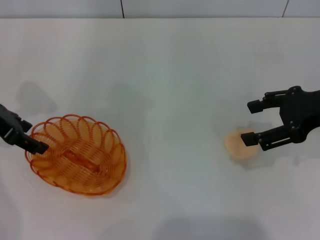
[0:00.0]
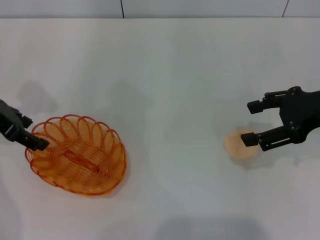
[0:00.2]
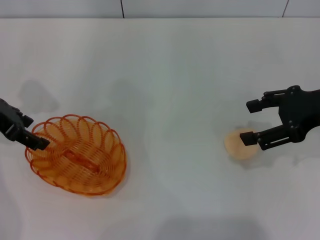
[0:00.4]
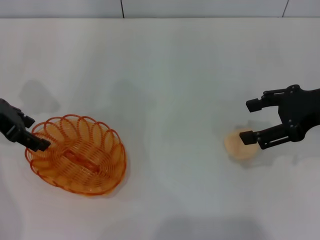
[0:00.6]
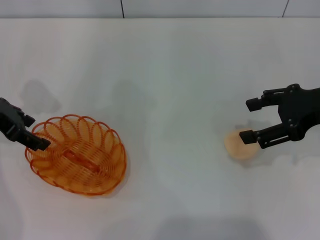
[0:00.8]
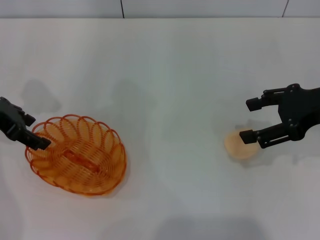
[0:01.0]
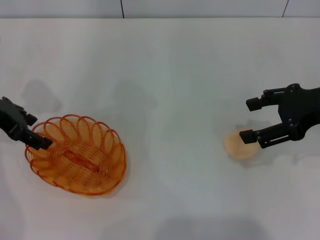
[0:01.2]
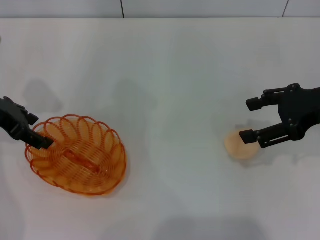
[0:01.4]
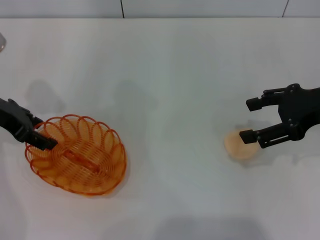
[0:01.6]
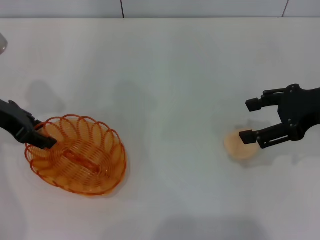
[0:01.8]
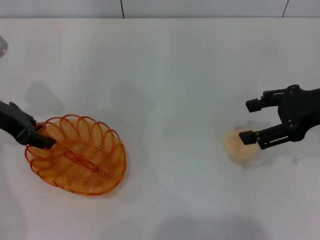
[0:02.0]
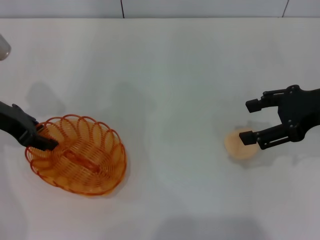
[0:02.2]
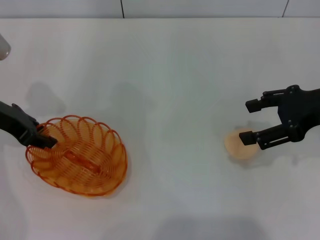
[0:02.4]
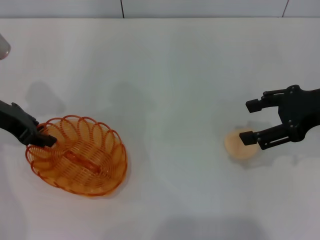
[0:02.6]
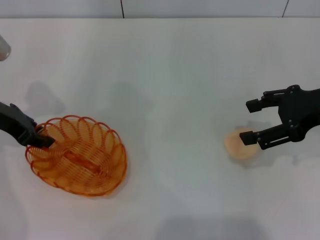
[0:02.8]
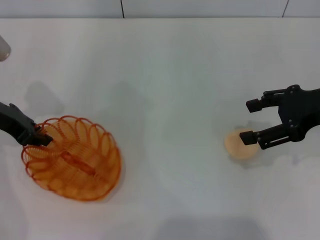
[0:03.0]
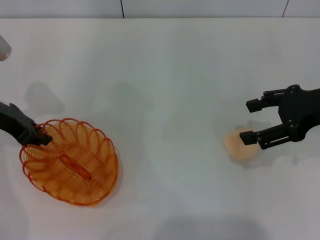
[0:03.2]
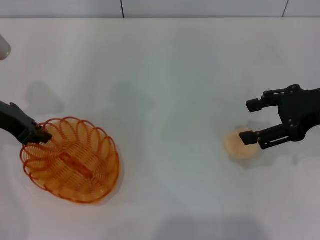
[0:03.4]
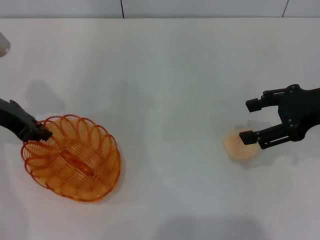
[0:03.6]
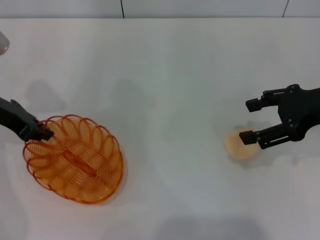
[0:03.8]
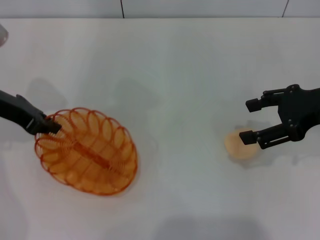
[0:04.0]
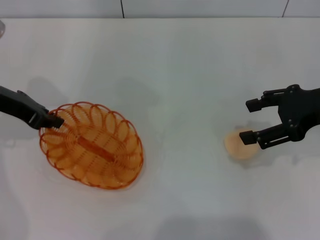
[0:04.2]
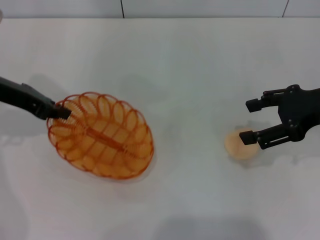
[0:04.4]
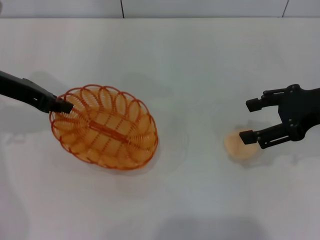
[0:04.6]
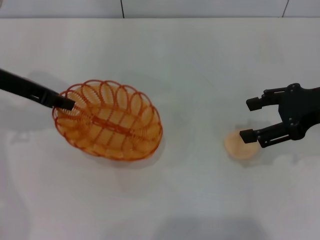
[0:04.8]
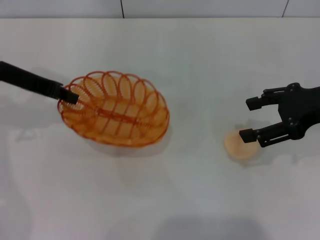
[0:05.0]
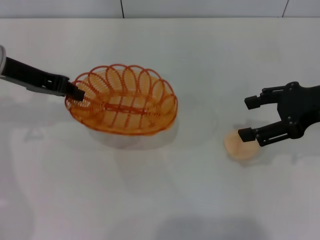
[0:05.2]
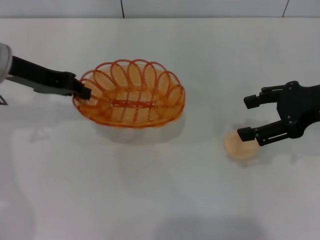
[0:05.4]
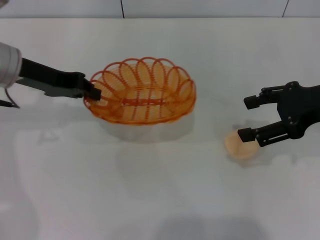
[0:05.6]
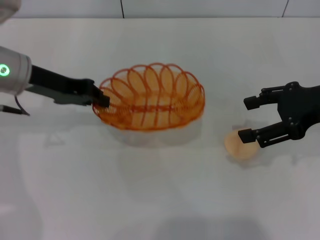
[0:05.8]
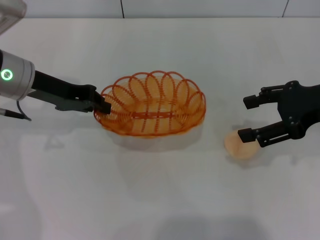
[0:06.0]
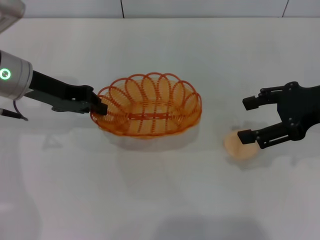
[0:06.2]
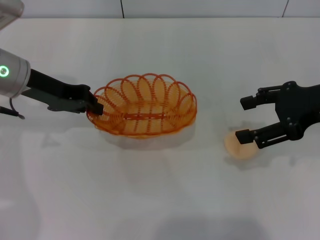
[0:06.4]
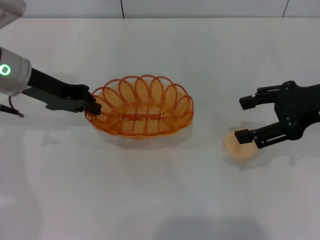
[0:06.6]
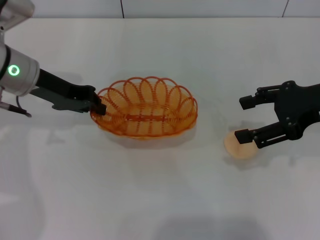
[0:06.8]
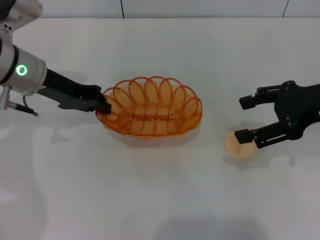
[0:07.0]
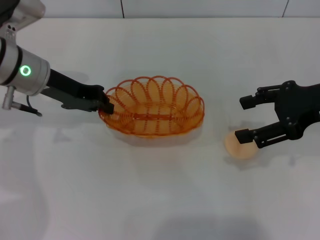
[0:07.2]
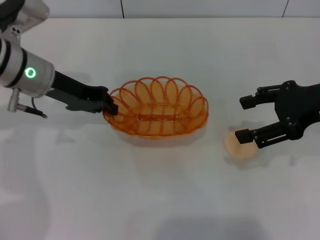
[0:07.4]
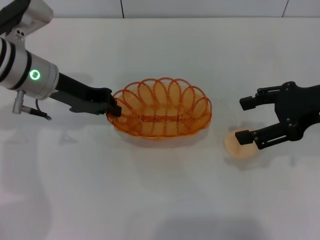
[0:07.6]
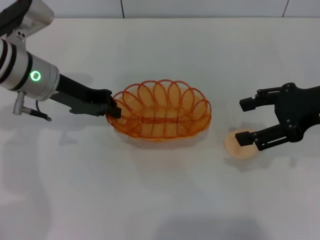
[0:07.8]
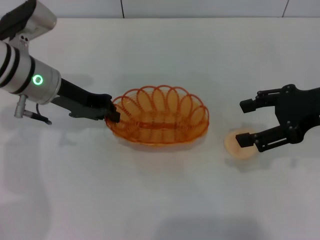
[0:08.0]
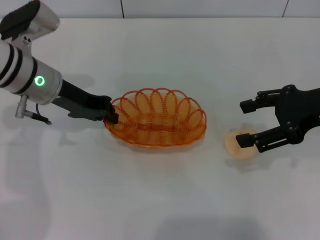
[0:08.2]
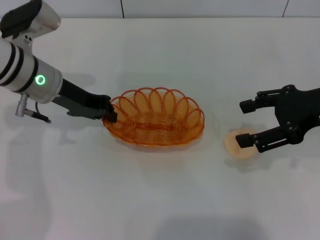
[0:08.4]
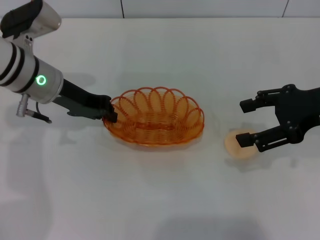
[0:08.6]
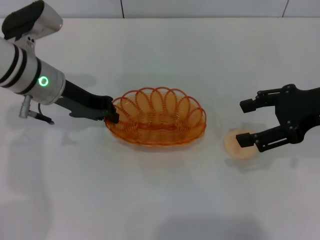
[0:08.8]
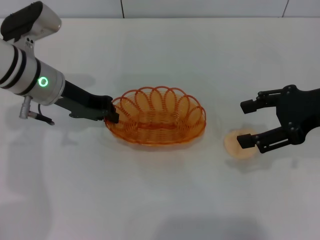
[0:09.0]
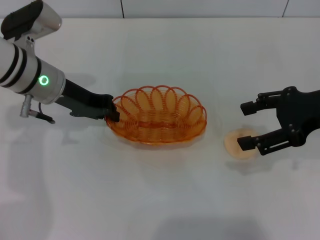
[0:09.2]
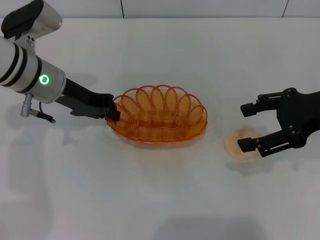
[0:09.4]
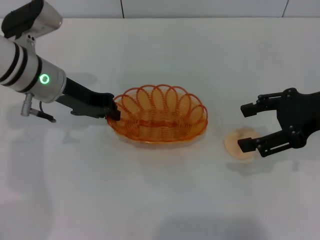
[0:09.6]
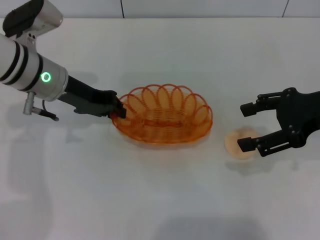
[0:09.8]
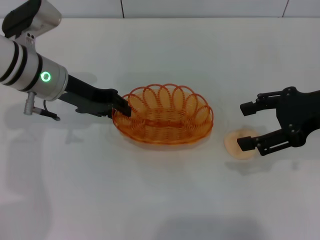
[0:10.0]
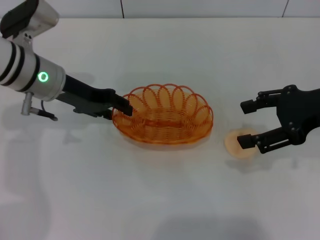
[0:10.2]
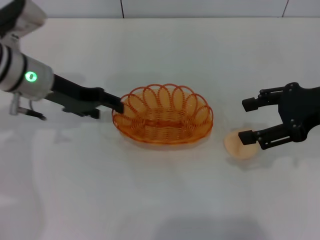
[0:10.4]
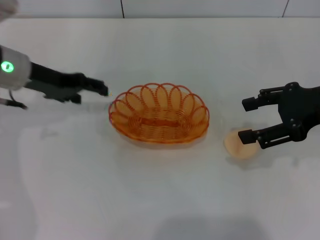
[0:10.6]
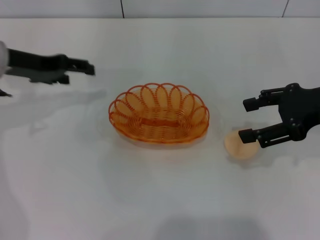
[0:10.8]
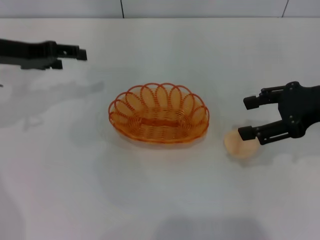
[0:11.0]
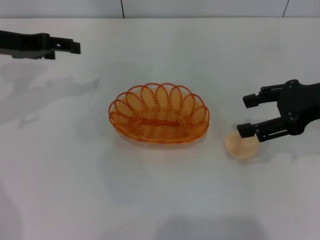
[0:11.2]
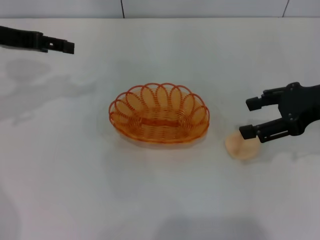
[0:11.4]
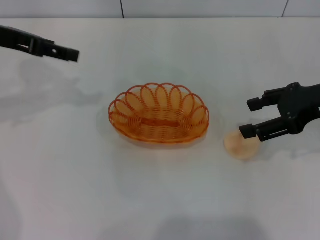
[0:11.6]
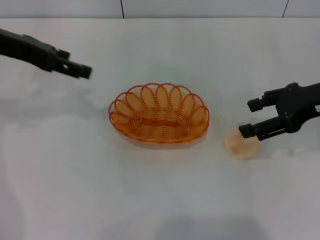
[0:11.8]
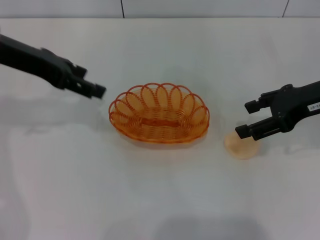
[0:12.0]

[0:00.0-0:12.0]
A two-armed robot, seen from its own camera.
Step, 0:00.0 to 0:04.8: Pick up the basket with the left gripper.
Step, 0:05.0 to 0:10.8: Place the basket in the center of view with the left gripper.
0:00.0 to 0:01.6: There are only small adjustments of the grippers.
0:01.6 to 0:03.0: The left gripper closes its fingers.
0:03.0 to 0:04.4: The grippers stay close to where they were, moving slightly.
0:06.0 to 0:09.0: The grippers stay close to where they were, moving slightly.
0:09.0 to 0:10.4: The left gripper opens its fingers.
0:10.4 to 0:12.0: The left gripper is displaced upward by approximately 10 cm, and opens up.

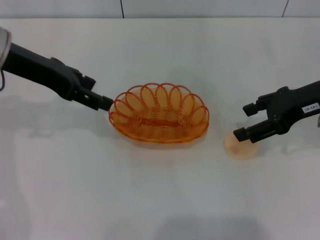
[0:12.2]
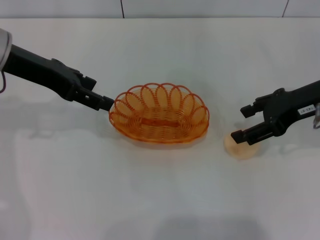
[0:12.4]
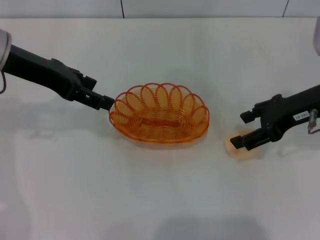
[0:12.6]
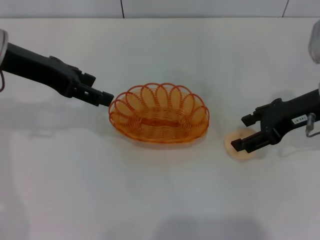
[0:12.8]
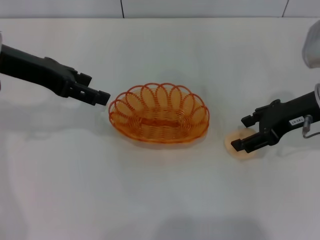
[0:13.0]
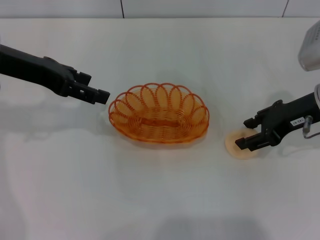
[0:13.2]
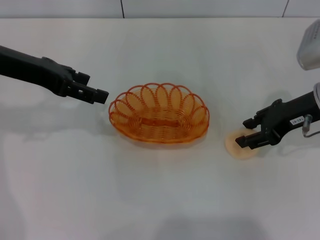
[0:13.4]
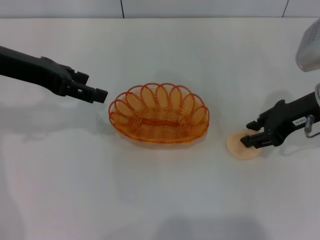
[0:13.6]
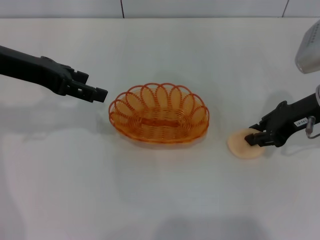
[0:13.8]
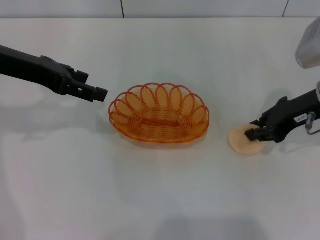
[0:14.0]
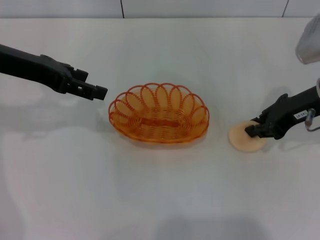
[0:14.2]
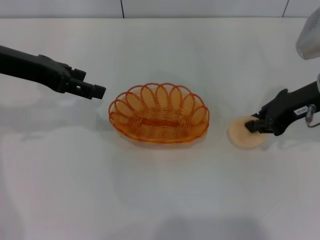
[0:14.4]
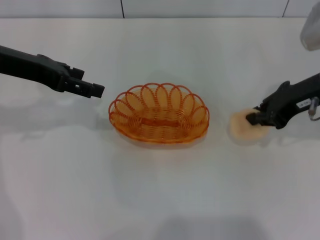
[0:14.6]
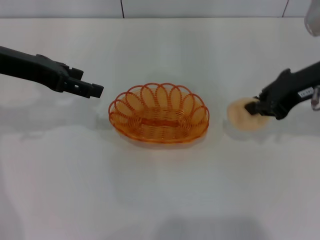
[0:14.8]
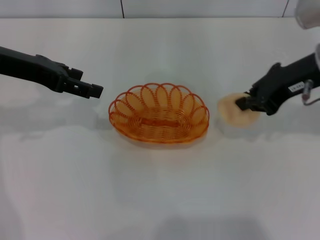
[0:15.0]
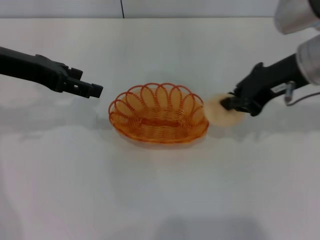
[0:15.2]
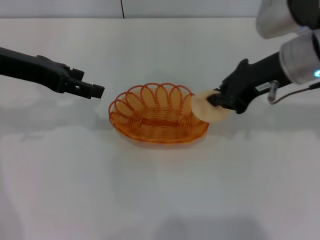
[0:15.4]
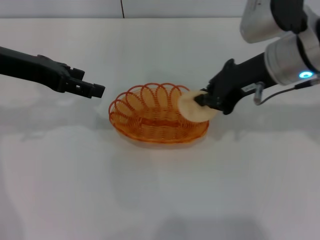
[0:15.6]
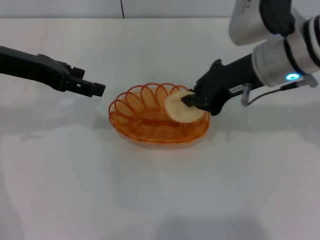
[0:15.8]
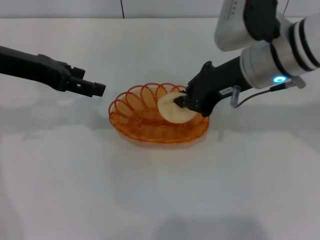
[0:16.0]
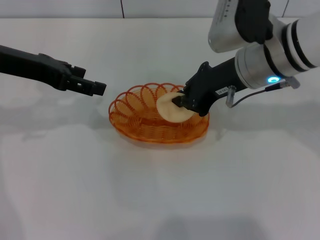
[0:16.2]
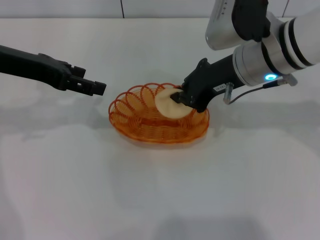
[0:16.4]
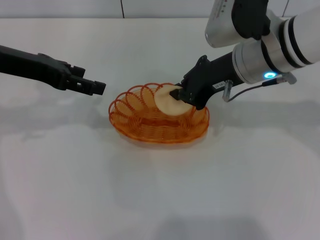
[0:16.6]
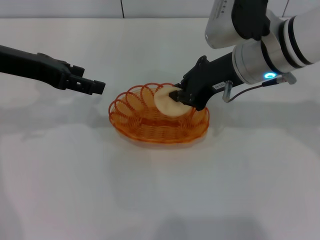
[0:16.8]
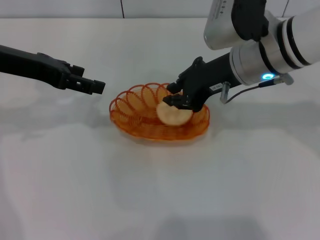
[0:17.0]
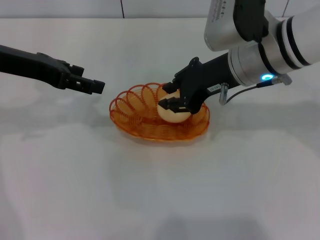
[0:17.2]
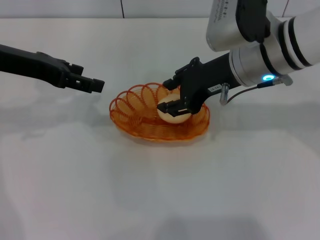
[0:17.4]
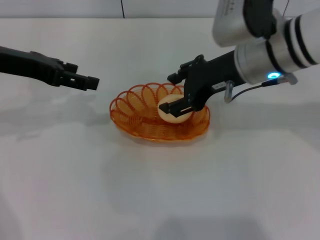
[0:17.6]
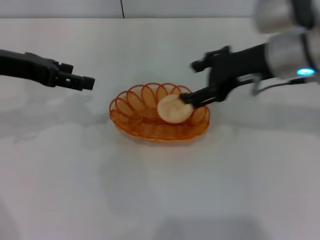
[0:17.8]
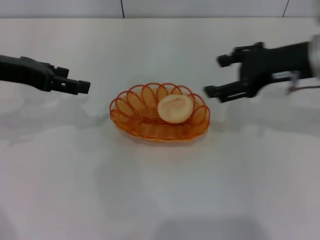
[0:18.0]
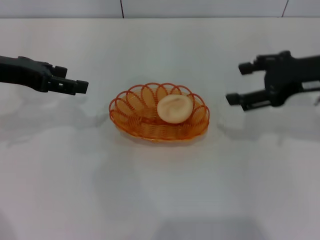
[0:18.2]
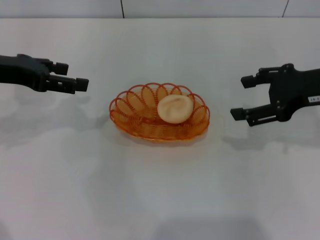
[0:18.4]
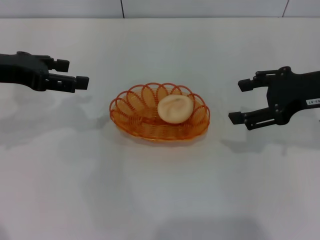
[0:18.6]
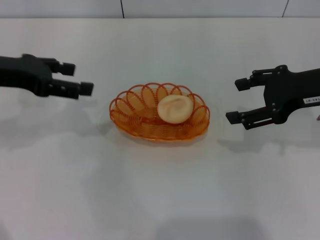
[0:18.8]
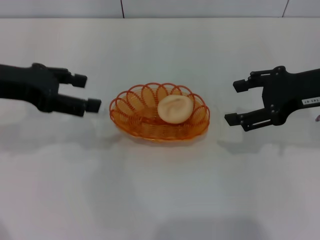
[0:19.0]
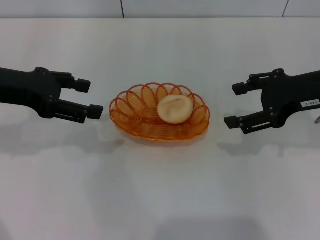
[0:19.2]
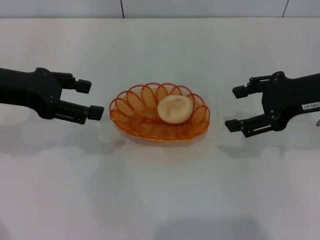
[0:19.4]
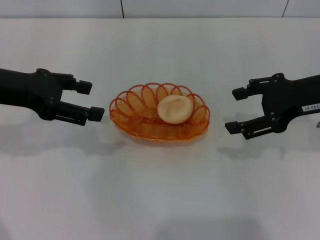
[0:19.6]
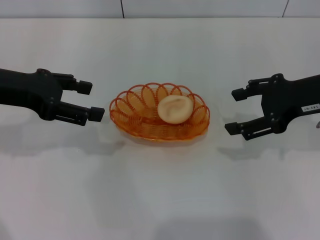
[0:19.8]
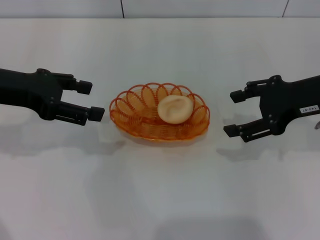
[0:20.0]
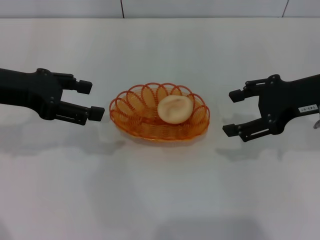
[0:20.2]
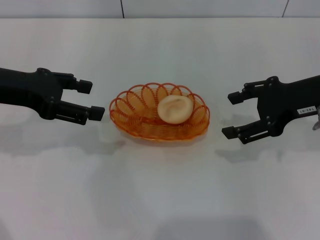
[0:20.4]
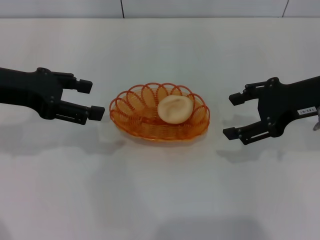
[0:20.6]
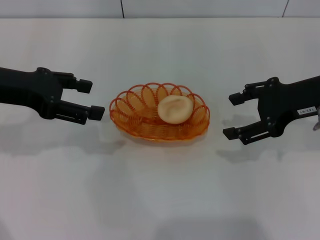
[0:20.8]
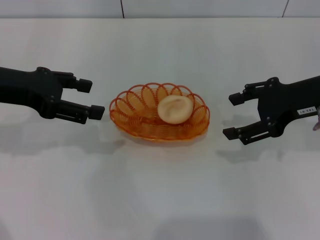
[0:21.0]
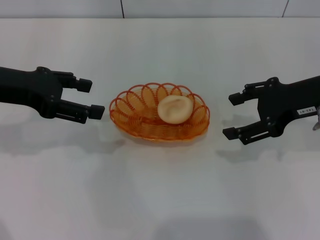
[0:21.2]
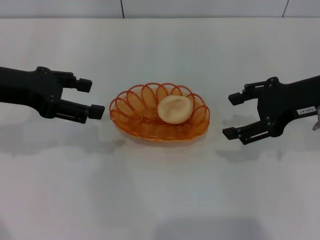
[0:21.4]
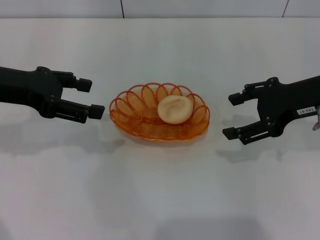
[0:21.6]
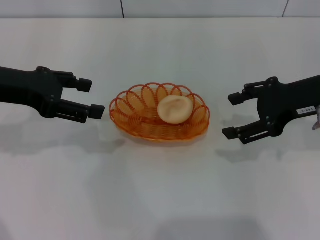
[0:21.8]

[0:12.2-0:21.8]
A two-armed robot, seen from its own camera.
Step, 0:12.2 to 0:14.8: Pick up the egg yolk pastry with the right gripper.
Step, 0:15.0 to 0:18.0: Place the egg yolk pastry into the basket with the right gripper.
0:12.2 to 0:13.8: The right gripper closes its fingers.
0:13.8 to 0:15.4: The right gripper travels upward and to the left by approximately 10 cm, and closes.
0:15.4 to 0:17.0: The right gripper moves to the left, about 5 cm.
0:17.0 to 0:18.6: The right gripper goes some 15 cm to the right, and opens its fingers.
0:18.6 to 0:20.2: The grippers move only a little.
0:20.2 to 0:21.8: Neither gripper changes place.
